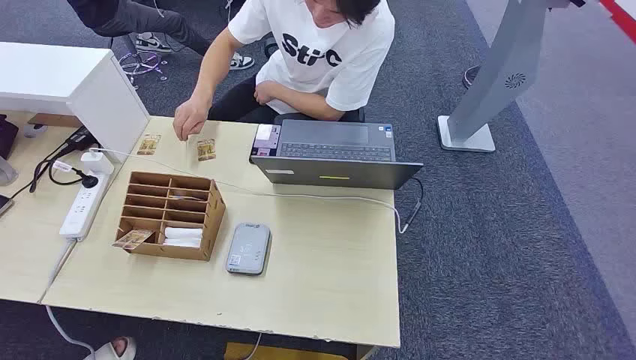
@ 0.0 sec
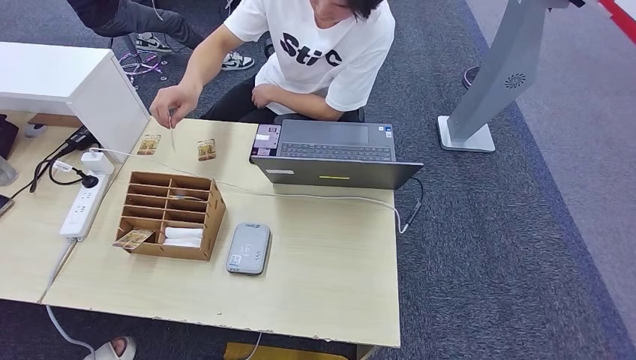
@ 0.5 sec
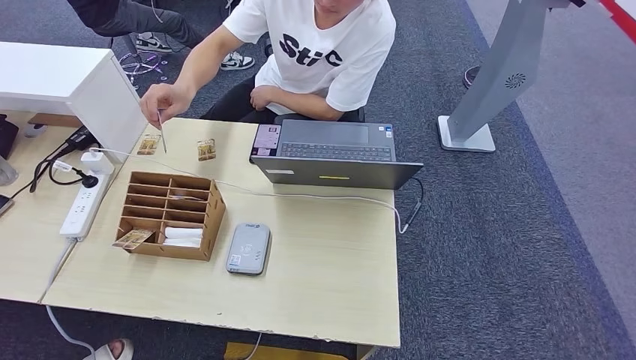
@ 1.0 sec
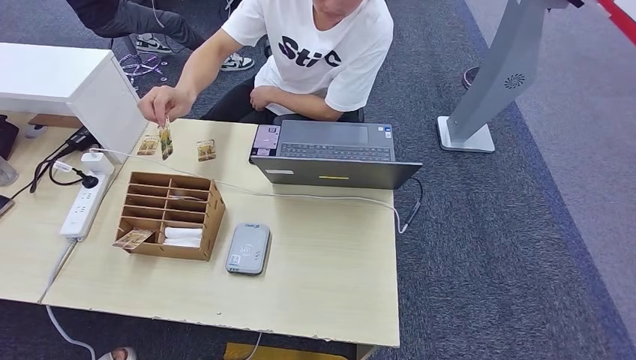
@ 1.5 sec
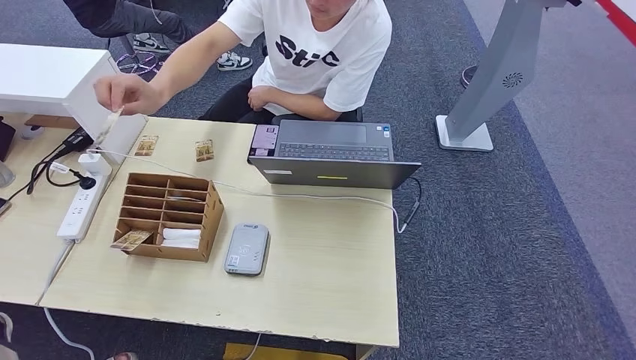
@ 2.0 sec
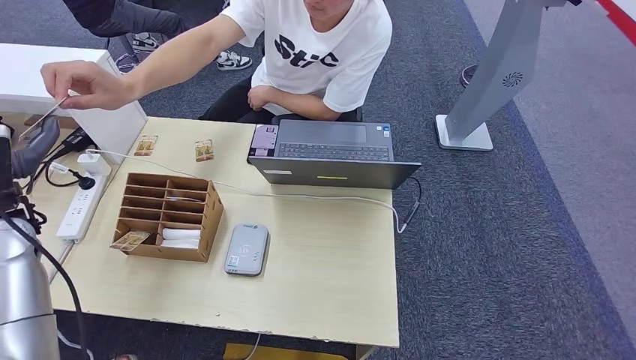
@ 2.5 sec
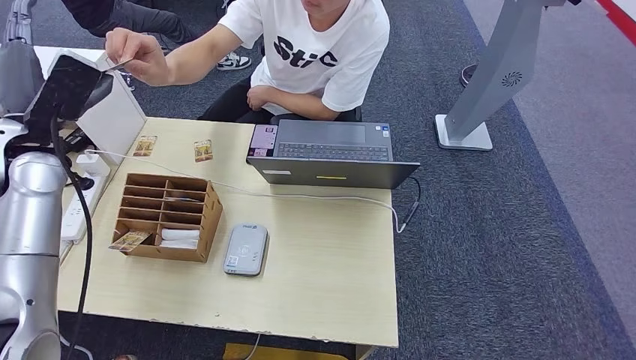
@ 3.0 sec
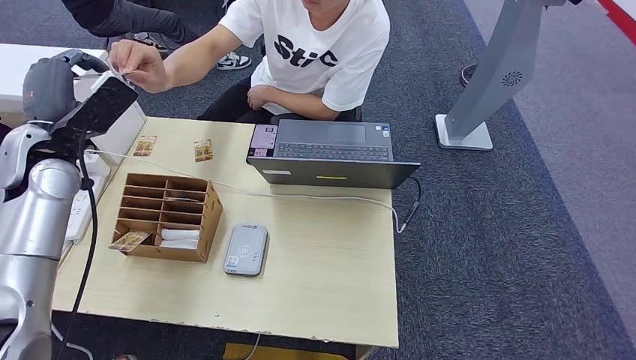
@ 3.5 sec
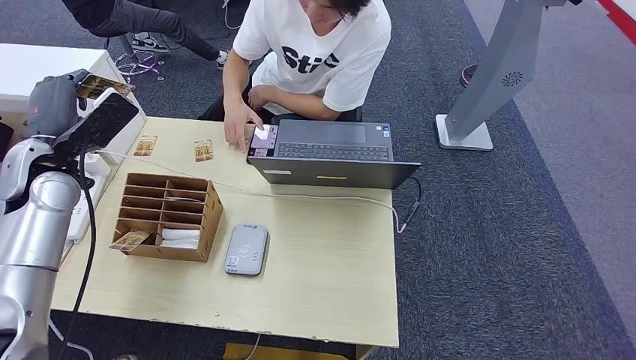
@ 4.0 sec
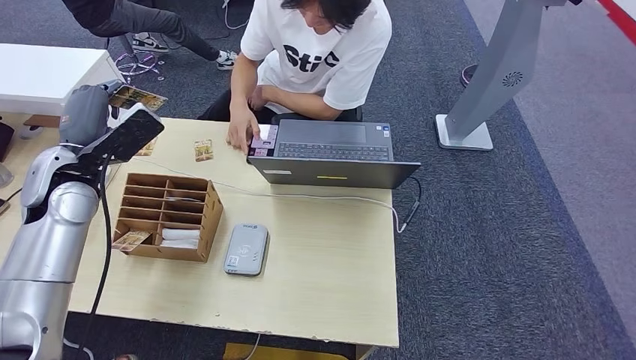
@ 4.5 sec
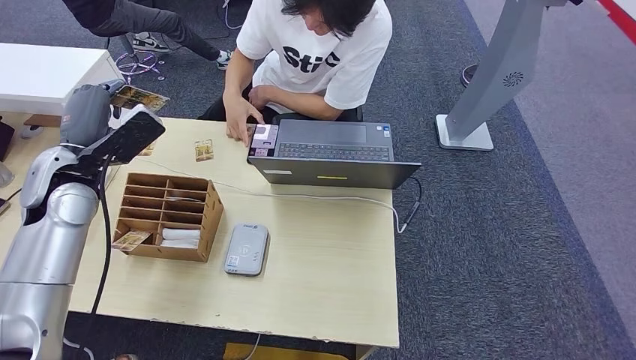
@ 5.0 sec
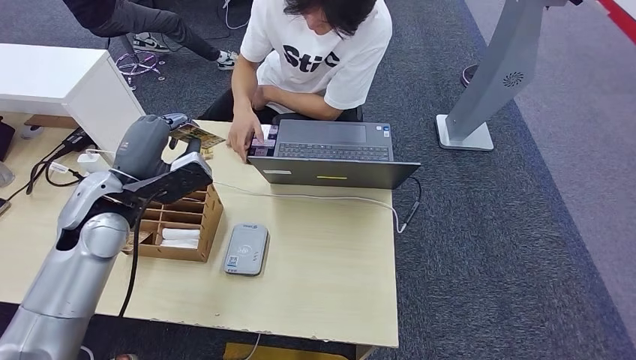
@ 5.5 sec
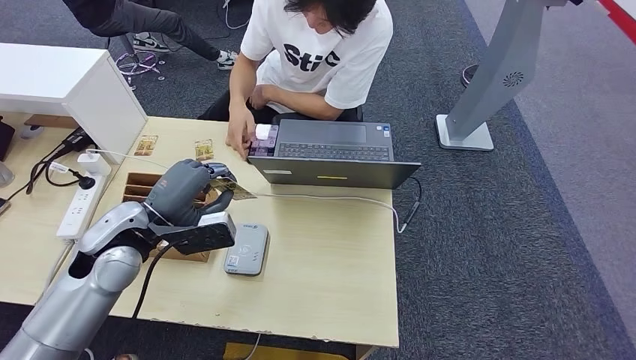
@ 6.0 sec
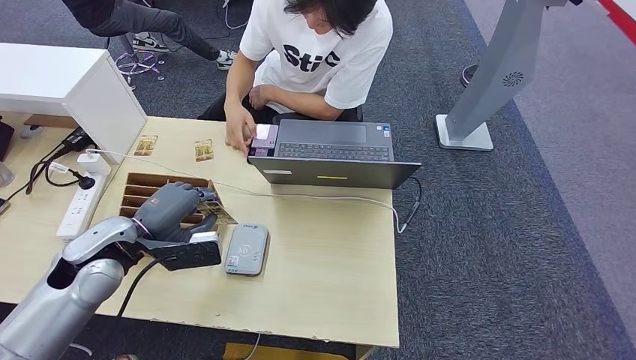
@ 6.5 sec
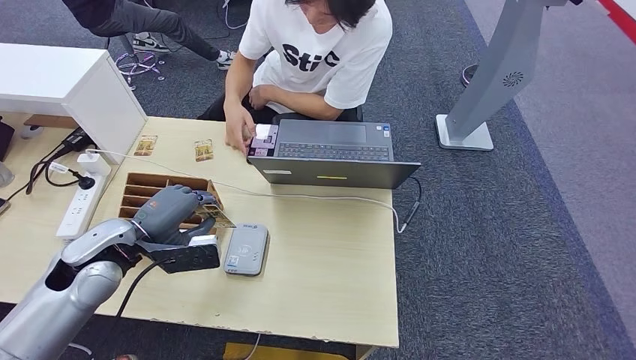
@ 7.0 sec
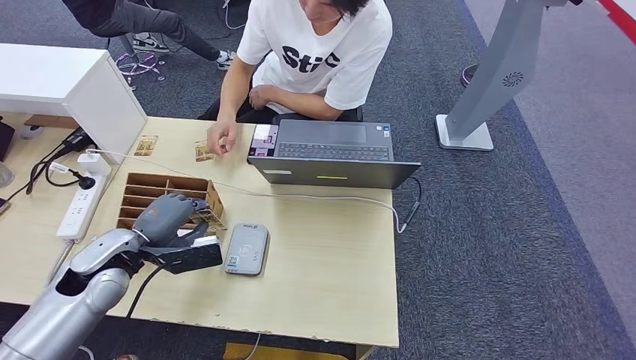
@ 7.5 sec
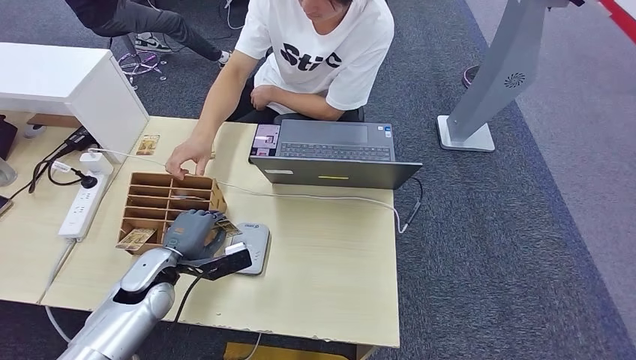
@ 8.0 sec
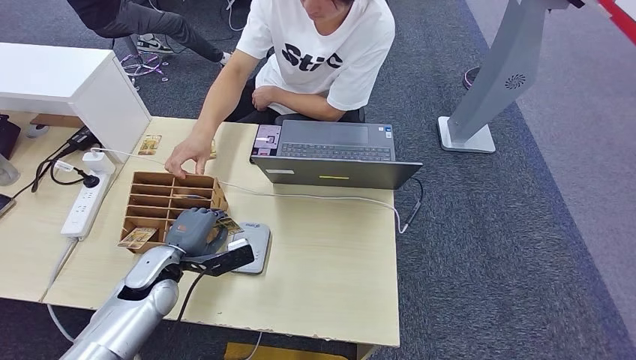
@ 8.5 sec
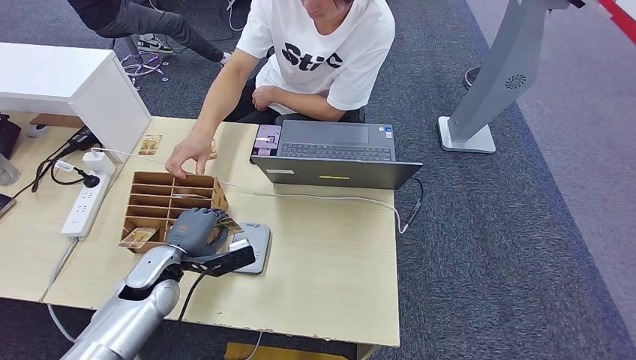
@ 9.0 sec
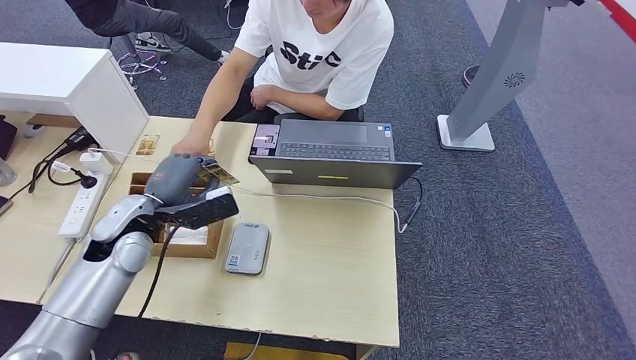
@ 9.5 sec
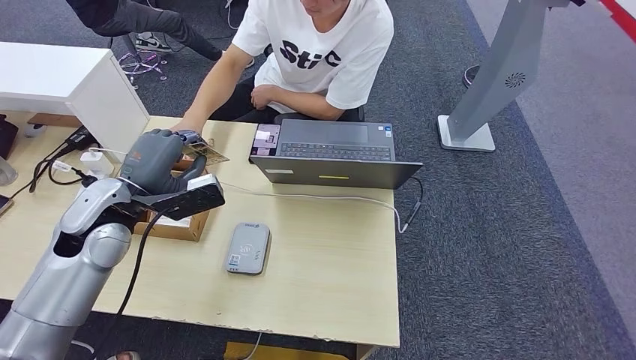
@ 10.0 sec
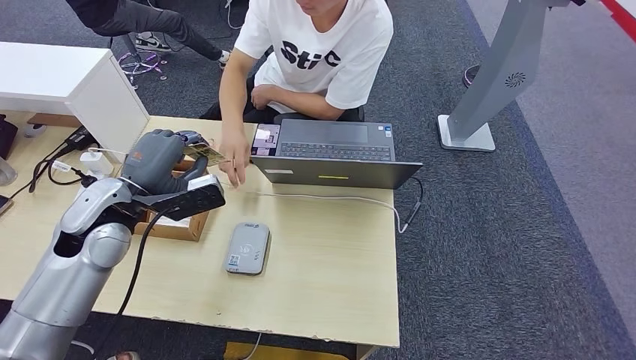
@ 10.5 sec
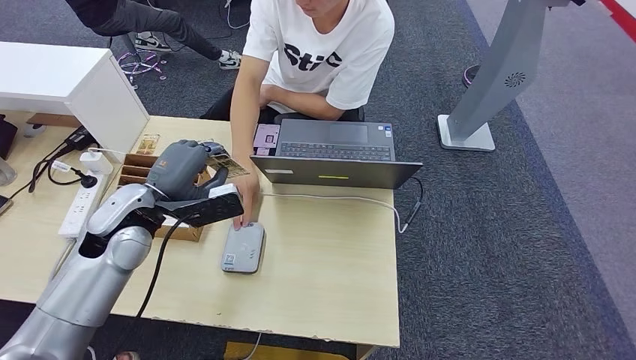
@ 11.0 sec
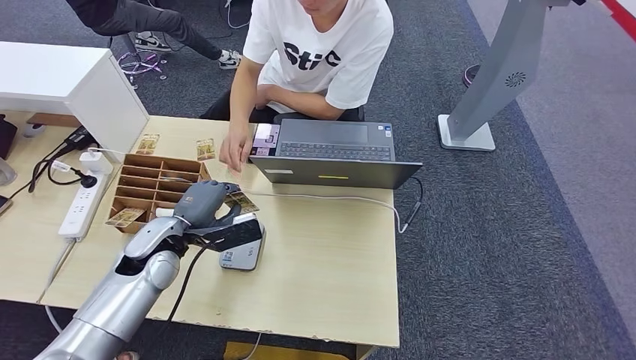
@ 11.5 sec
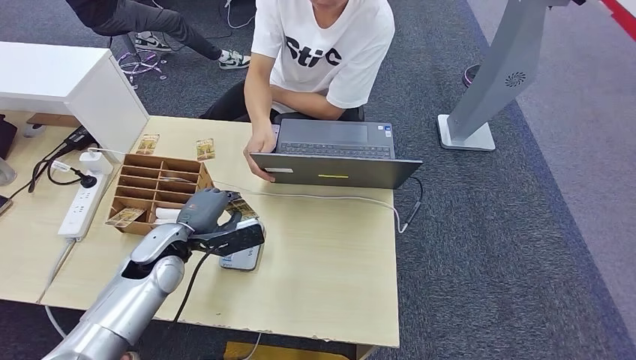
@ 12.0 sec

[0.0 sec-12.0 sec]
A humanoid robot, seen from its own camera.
Step, 0.0 sec to 3.0 sec: Take the ID card from the person's hand.
Step, 3.5 sec to 8.5 sec: Place the ID card on the card reader.
2.0 sec to 4.0 sec: The left hand shifts about 20 cm forward, to the right and upward.
4.0 sec to 6.0 sec: The left hand is displaced to the right, backward and downward by some 15 cm.
6.0 sec to 8.0 sec: The left hand goes about 15 cm downward.
8.0 sec to 10.0 sec: The left hand shifts approximately 15 cm upward.
10.0 sec to 12.0 sec: The left hand goes about 10 cm downward.

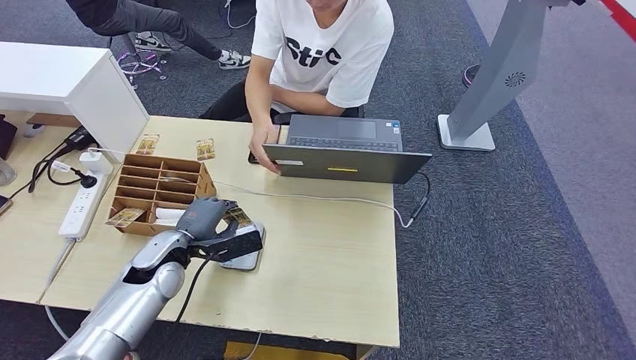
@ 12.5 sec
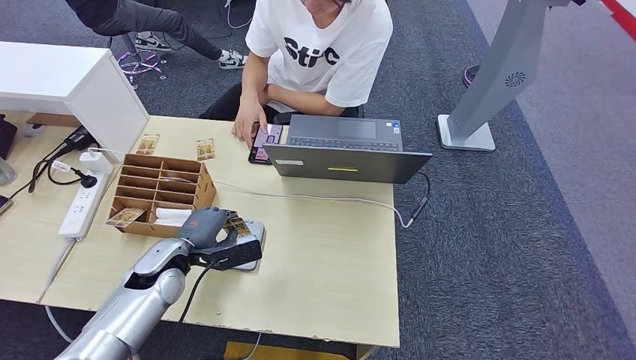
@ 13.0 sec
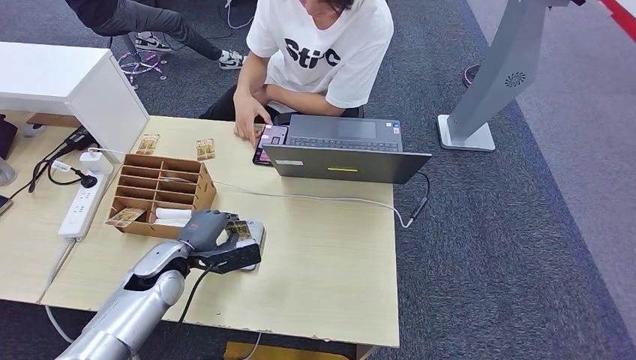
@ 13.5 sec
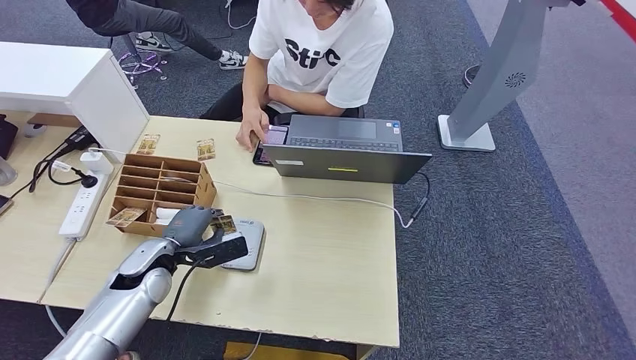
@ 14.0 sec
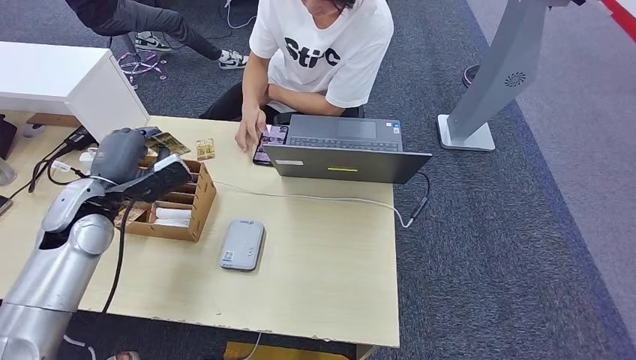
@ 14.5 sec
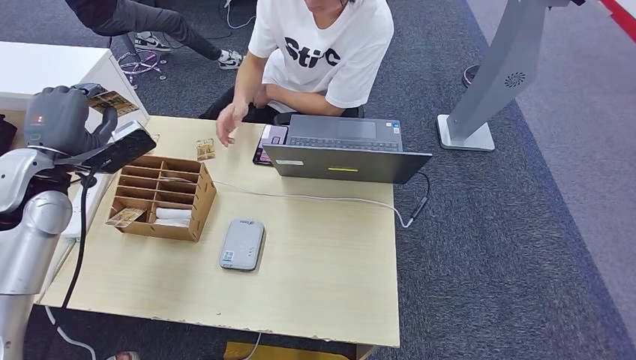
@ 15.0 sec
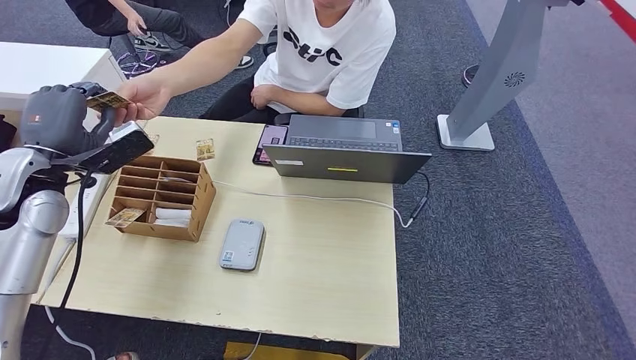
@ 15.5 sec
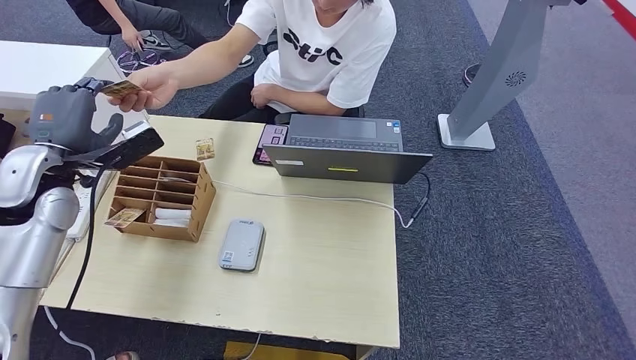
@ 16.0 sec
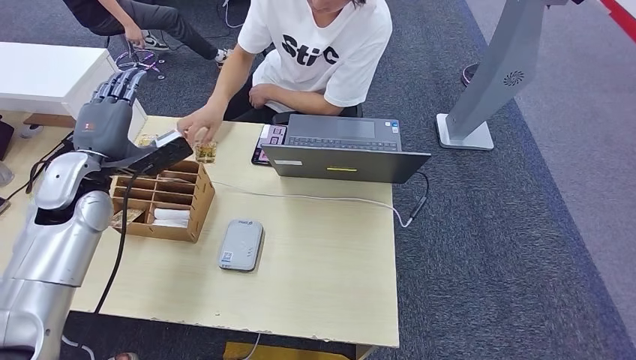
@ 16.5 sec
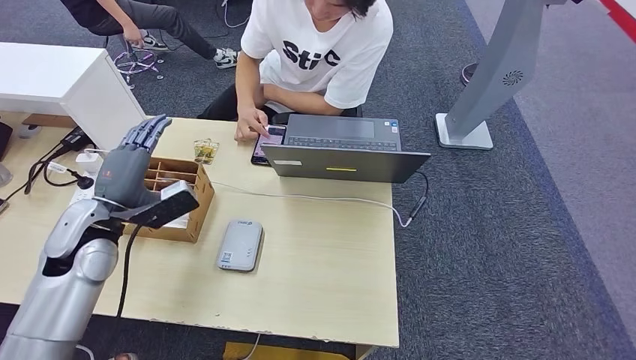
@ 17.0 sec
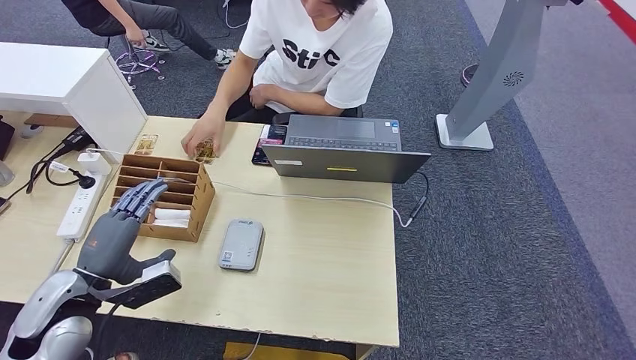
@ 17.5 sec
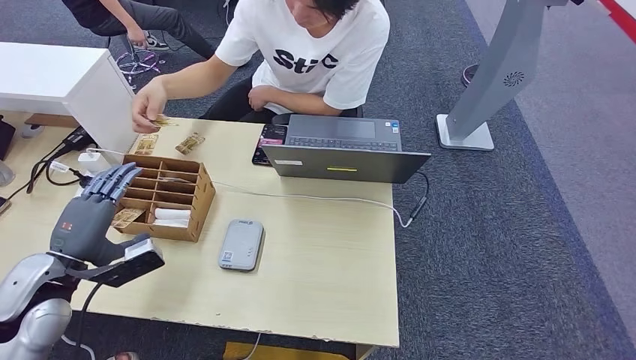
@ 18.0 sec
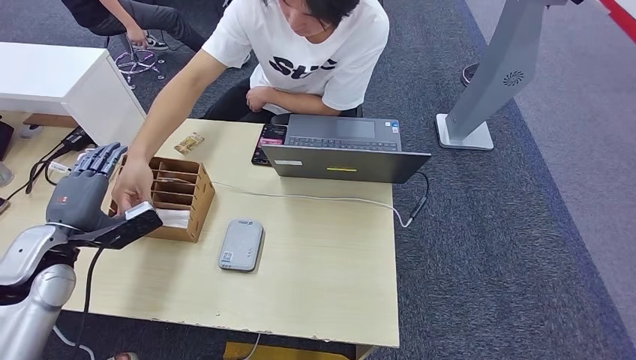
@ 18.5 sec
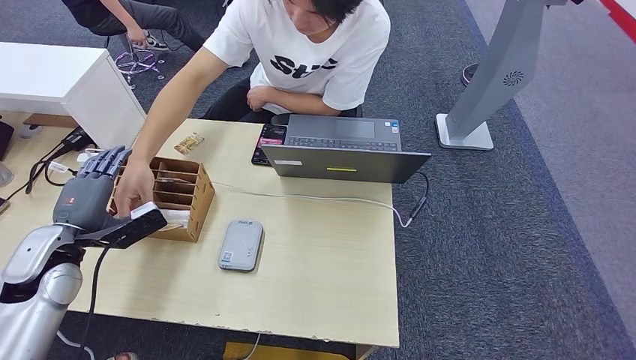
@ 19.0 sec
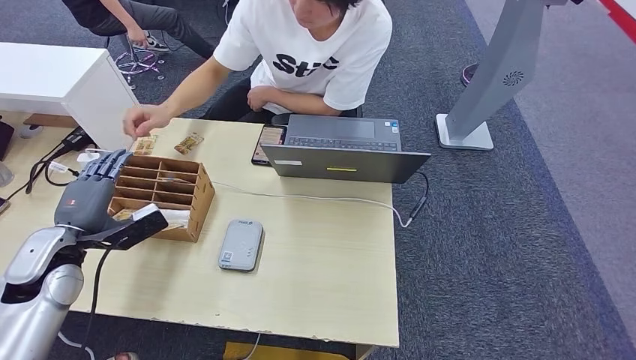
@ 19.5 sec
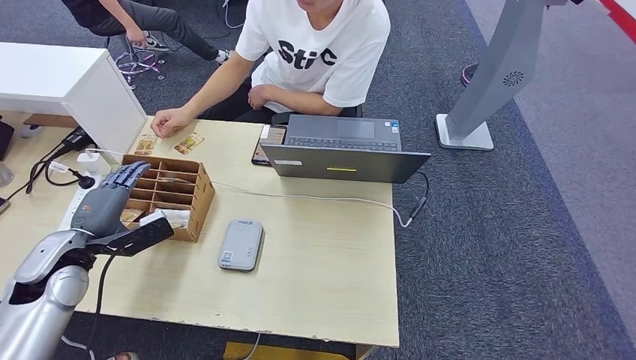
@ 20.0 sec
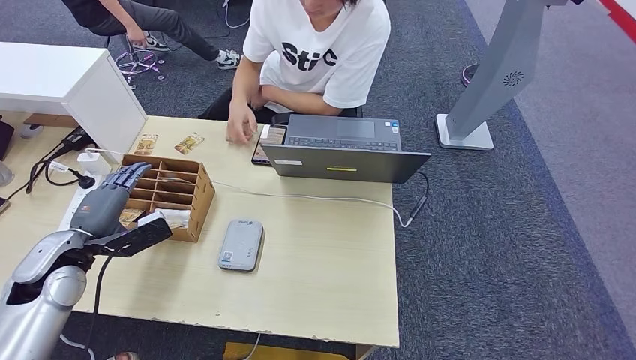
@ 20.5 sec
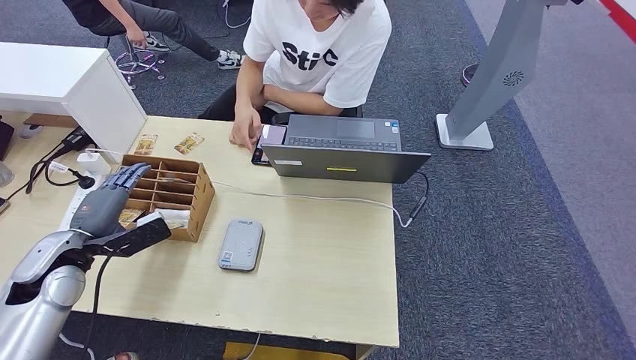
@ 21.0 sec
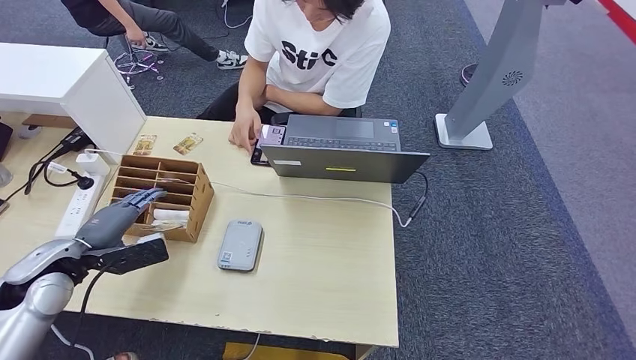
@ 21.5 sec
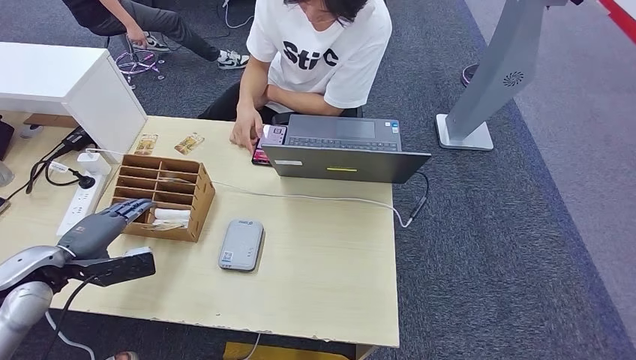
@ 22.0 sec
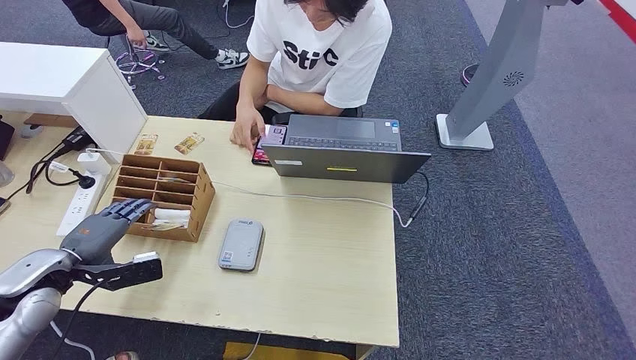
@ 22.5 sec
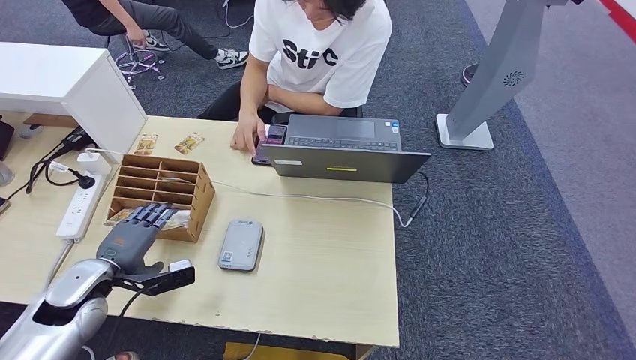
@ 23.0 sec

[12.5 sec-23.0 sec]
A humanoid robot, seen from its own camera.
Step, 12.5 sec to 16.5 sec: Hand the ID card to the person.
12.5 sec to 14.5 sec: The left hand travels upward and to the left by approximately 15 cm.
16.5 sec to 19.0 sec: The left hand shifts some 15 cm downward, backward and to the left.
19.0 sec to 21.0 sec: The hands make only small movements.
